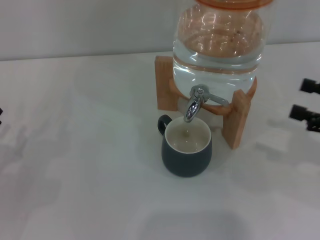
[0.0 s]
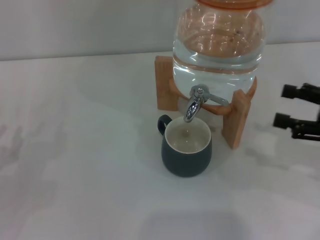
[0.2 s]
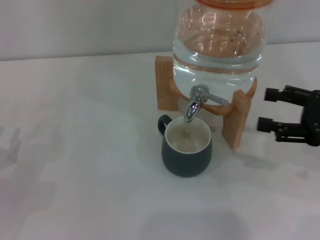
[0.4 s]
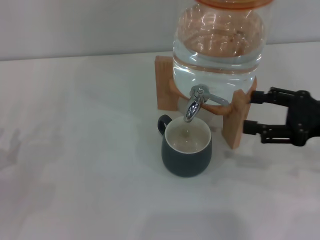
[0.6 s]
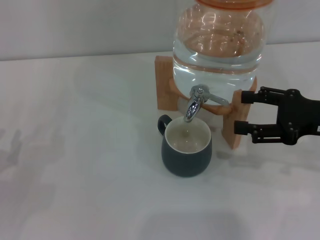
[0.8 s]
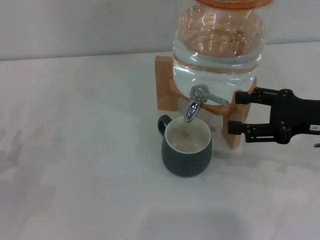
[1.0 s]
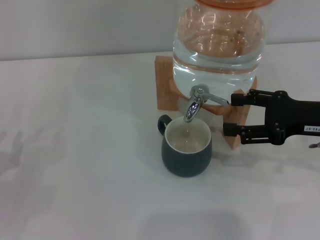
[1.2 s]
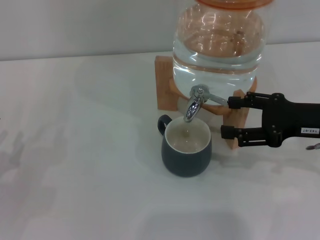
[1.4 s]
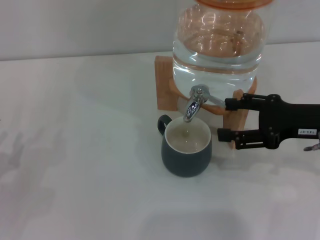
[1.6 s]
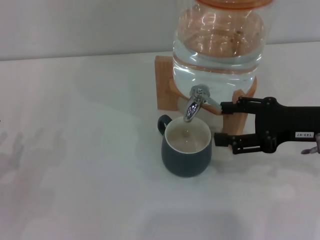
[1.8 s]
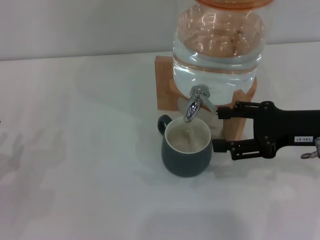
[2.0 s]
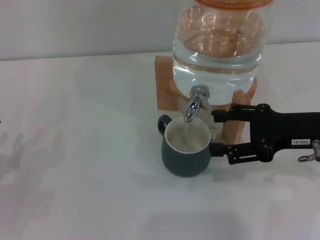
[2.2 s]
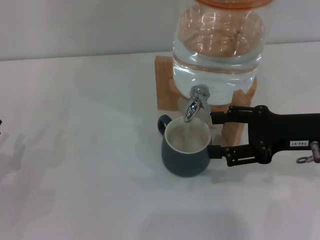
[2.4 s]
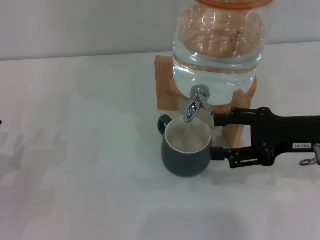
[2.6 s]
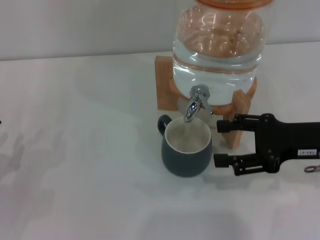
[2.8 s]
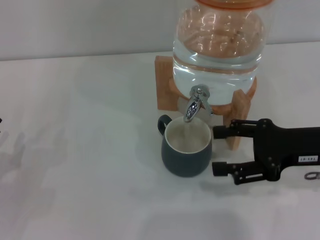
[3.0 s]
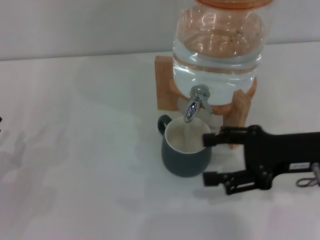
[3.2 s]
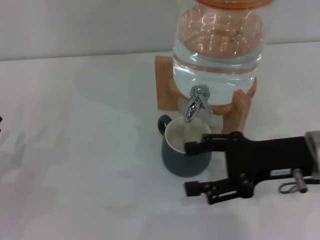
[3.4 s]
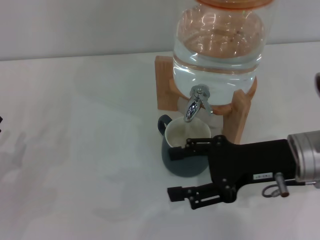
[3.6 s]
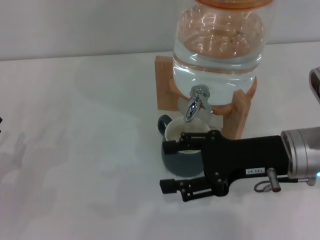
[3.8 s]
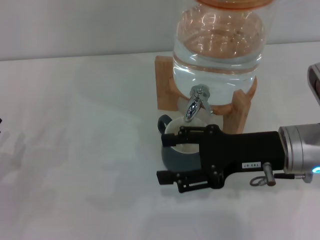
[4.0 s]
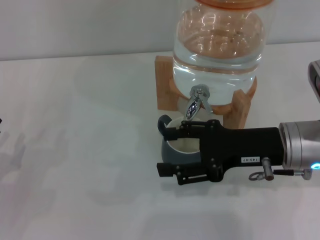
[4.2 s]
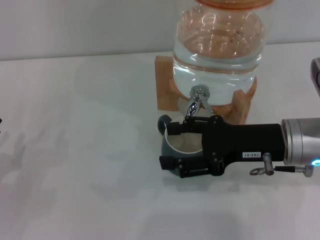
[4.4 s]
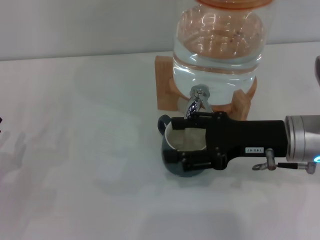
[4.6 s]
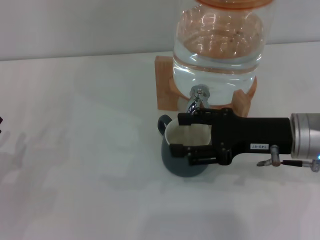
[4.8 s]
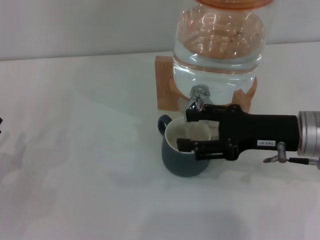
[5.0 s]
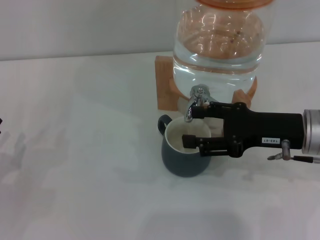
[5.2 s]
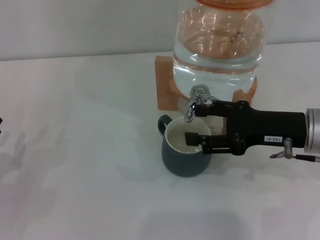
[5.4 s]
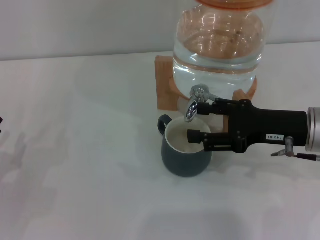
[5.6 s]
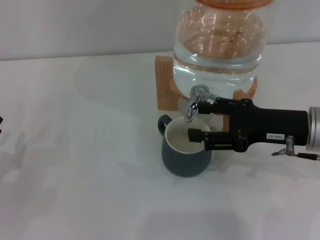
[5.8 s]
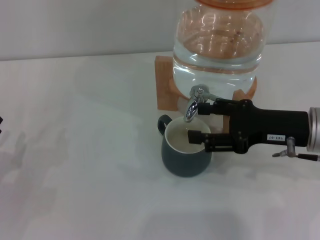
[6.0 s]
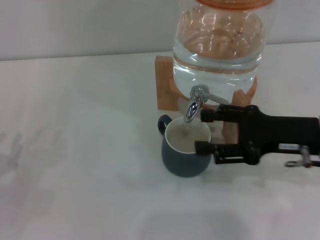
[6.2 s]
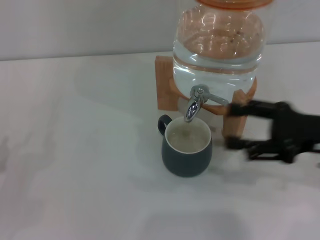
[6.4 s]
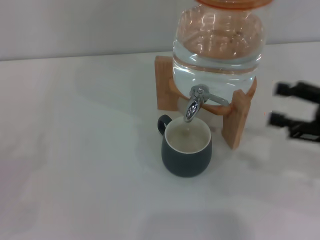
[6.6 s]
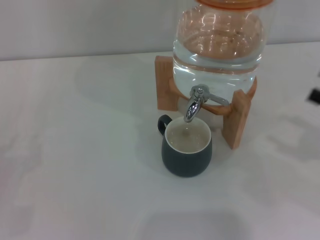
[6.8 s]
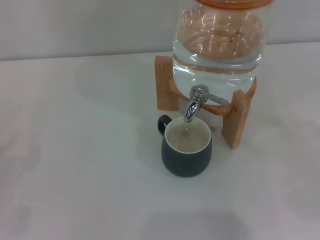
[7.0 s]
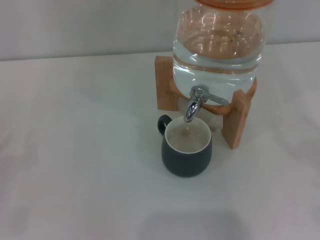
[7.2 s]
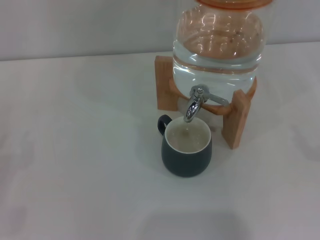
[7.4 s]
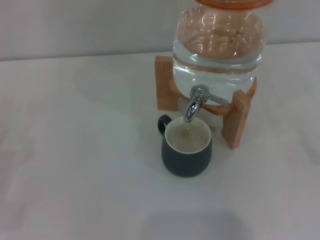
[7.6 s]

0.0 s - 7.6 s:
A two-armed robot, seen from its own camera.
Task of the whole recording: the left gripper pick up the black cup and place it horizontally under the faucet, the right gripper turn on the faucet to fill the cup, and then turn off the faucet.
Step, 0.0 s - 4.2 s: Open the dispenser valve and fill the cup with water with the right gripper.
Step, 4.4 s - 6.4 s: Close the dispenser valve with the right gripper.
0.0 s - 1.6 s: The right gripper heads to the left, covering roughly 10 cm.
1.6 s - 3.0 s: There are only small adjustments of the grippers.
3.0 s - 4.6 s: The right gripper travels to the left by about 5 cm.
4.6 s - 6.0 s: The grippers make only small movements.
6.0 s - 7.6 s: The right gripper heads to the right and backward, covering about 25 cm. The left gripper travels to the left by approximately 5 cm.
